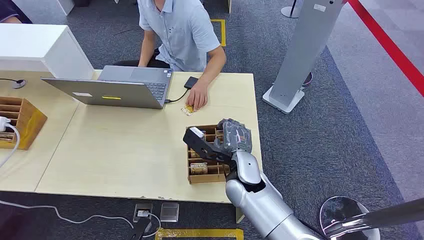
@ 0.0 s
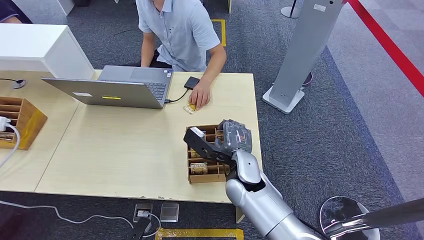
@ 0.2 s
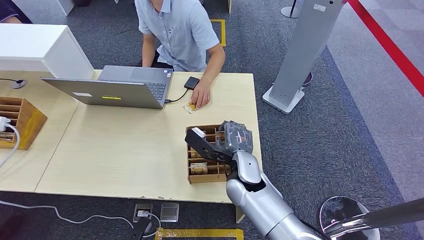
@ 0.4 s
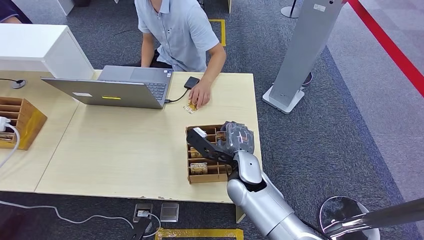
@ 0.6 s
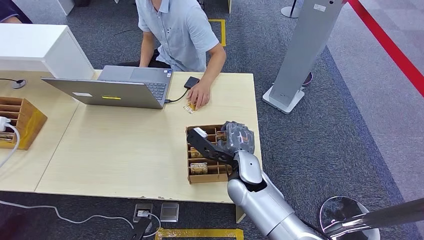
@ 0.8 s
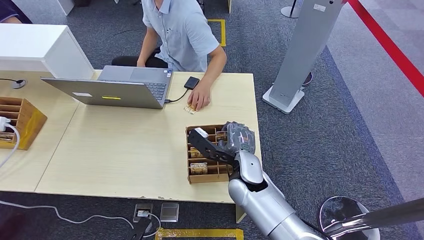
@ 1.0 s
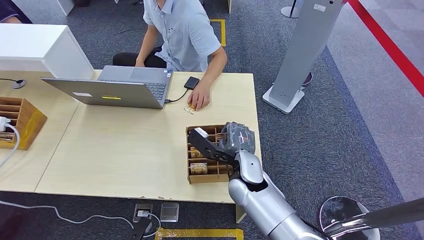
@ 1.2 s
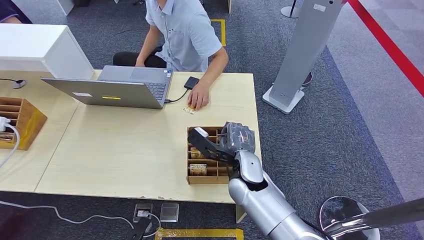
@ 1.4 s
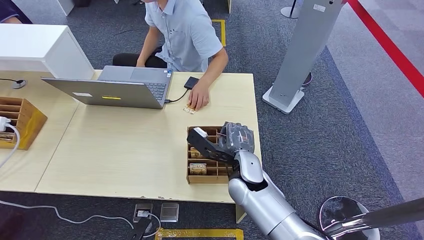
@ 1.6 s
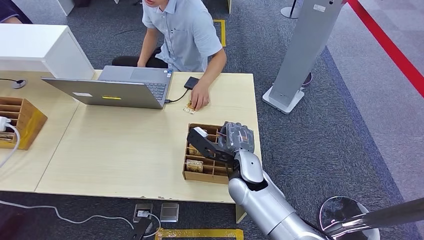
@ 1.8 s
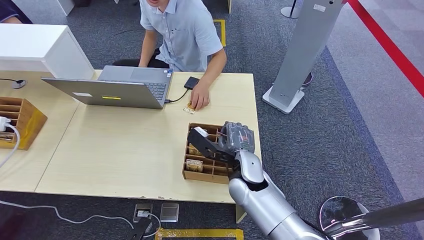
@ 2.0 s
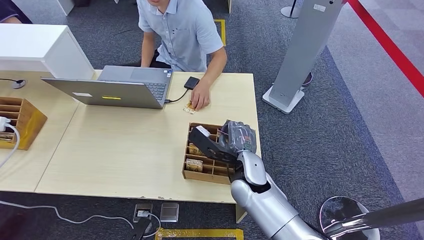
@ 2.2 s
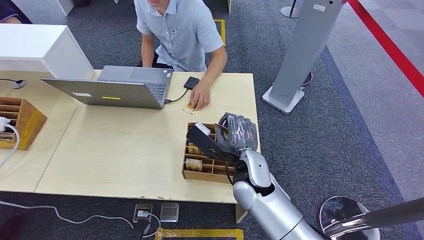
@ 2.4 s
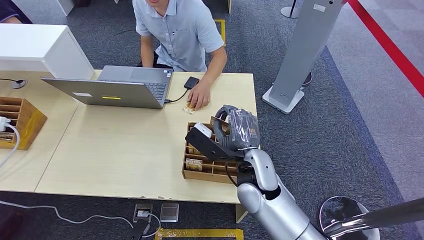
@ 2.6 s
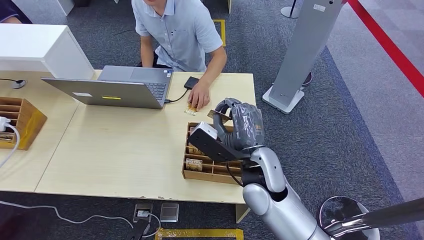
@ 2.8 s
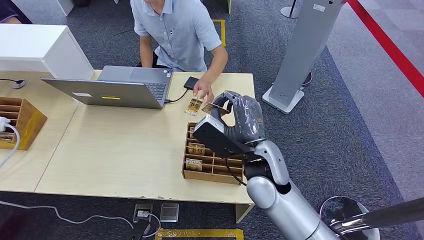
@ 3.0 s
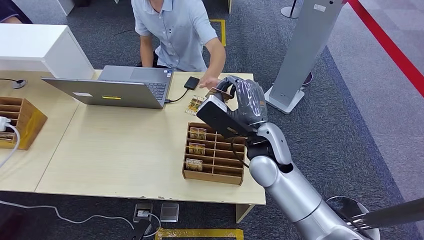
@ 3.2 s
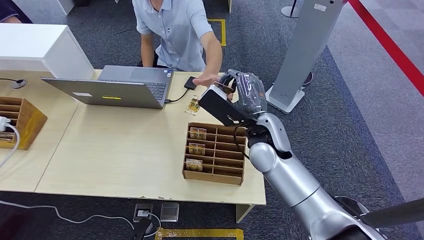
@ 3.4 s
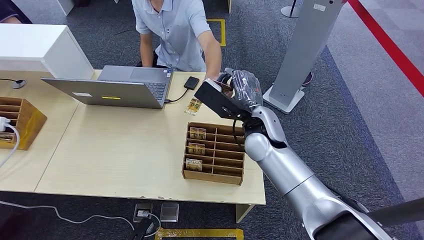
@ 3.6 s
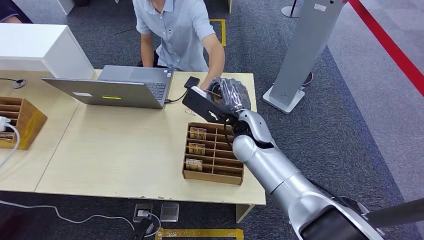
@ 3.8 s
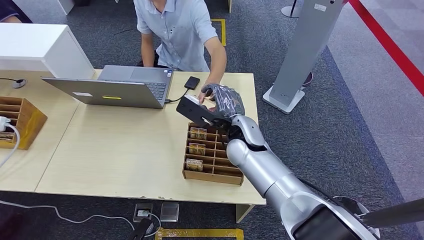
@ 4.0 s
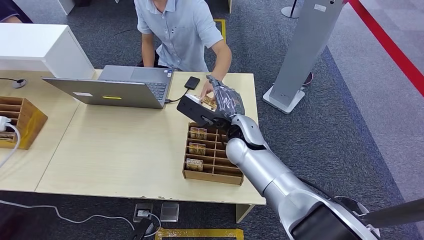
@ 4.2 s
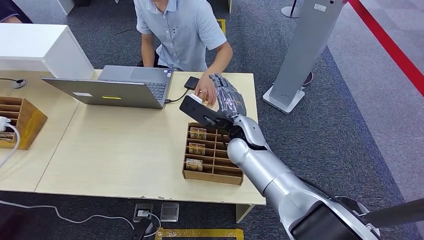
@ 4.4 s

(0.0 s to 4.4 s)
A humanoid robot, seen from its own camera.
Step, 0.0 s - 2.4 s: Pick up the key card from the card box.
Step, 3.6 s - 4.4 s: Hand the key card to the target.
1.4 s - 3.0 s: The right hand heads upward, covering some 10 cm.
3.0 s - 4.4 s: The right hand travels forward by roughly 10 cm.
